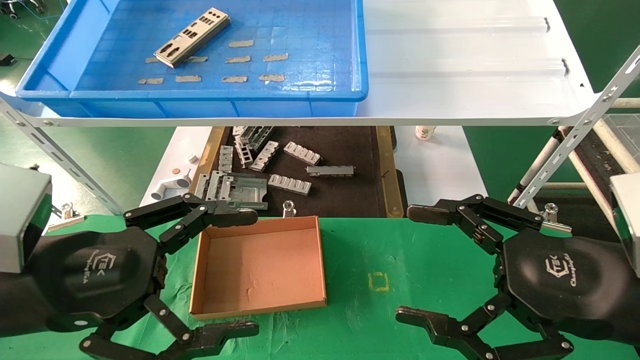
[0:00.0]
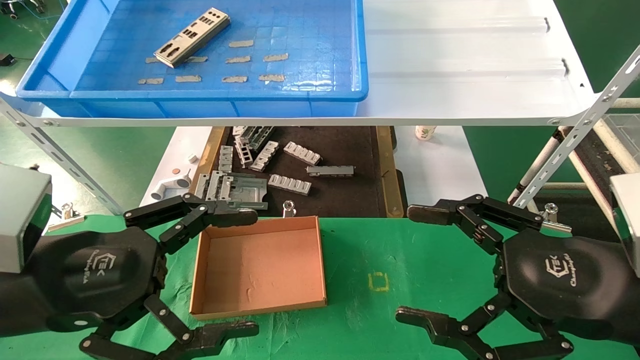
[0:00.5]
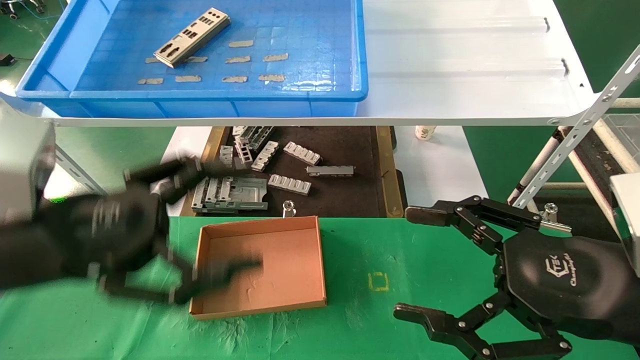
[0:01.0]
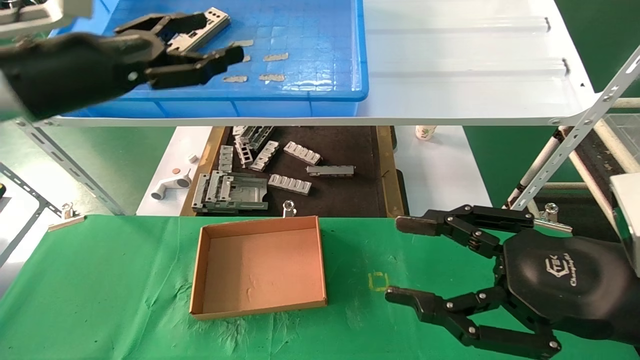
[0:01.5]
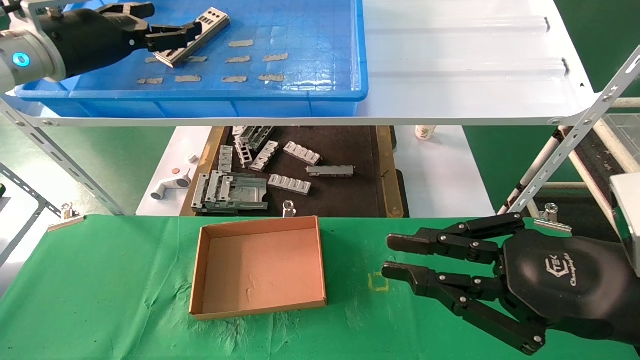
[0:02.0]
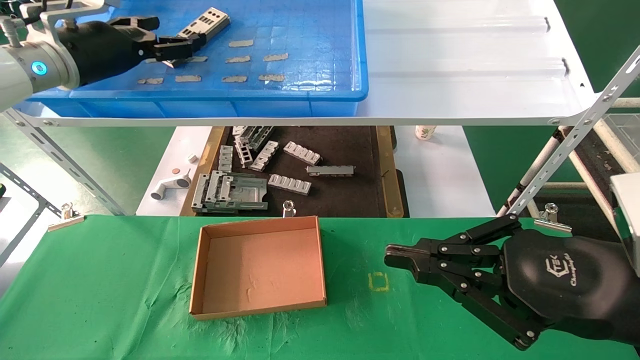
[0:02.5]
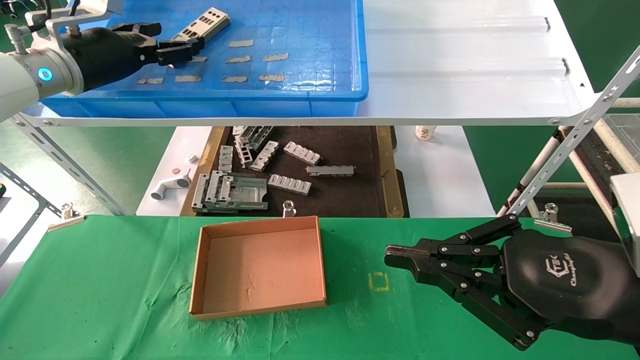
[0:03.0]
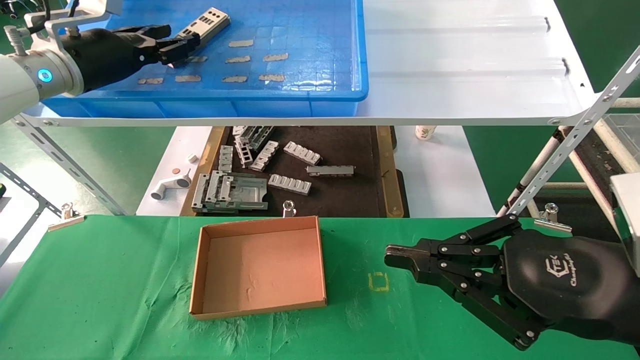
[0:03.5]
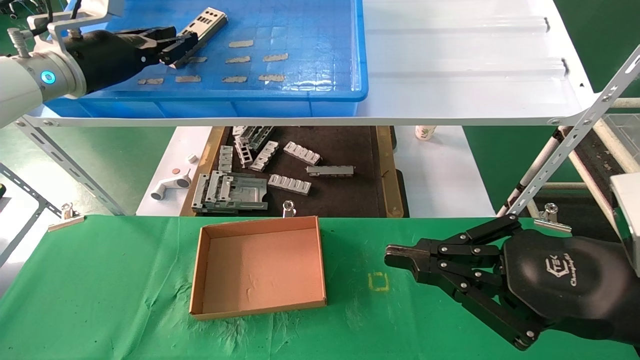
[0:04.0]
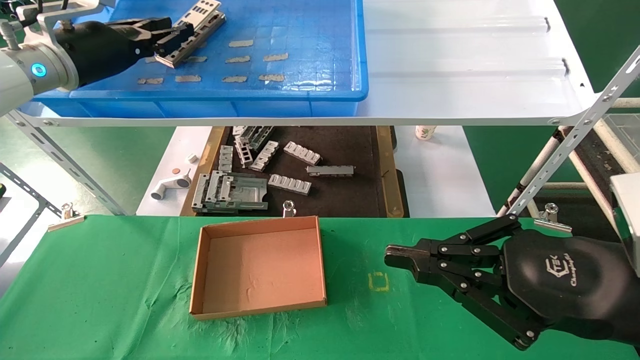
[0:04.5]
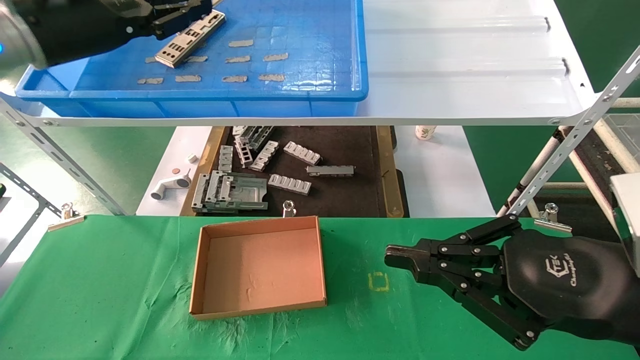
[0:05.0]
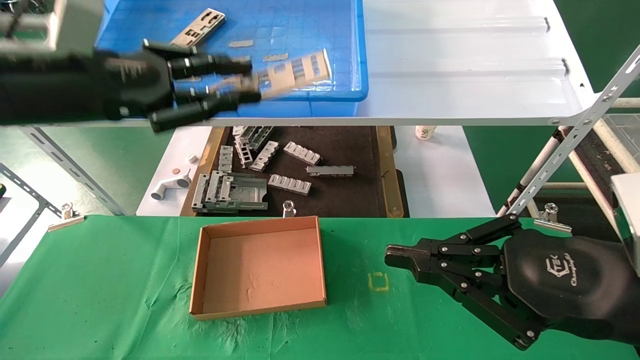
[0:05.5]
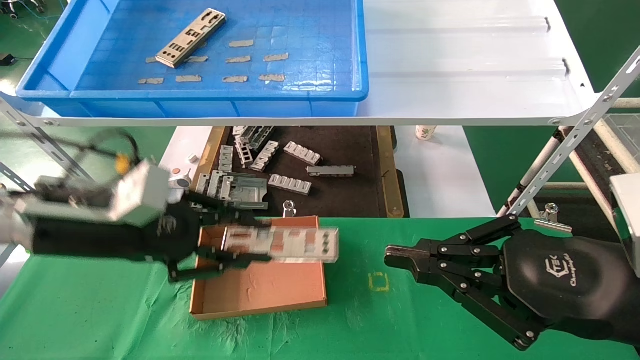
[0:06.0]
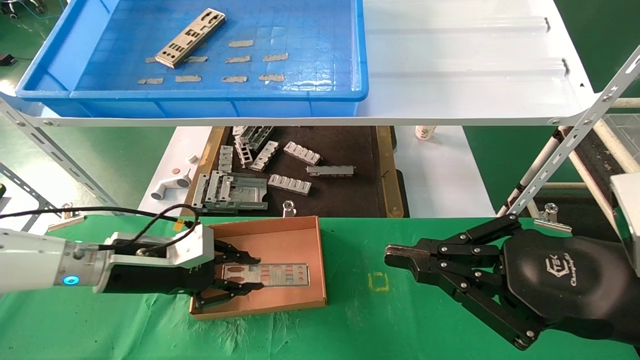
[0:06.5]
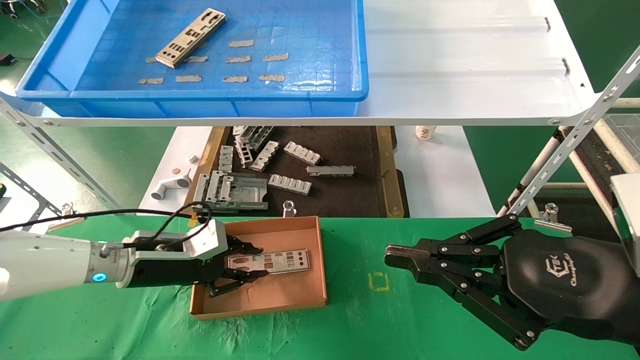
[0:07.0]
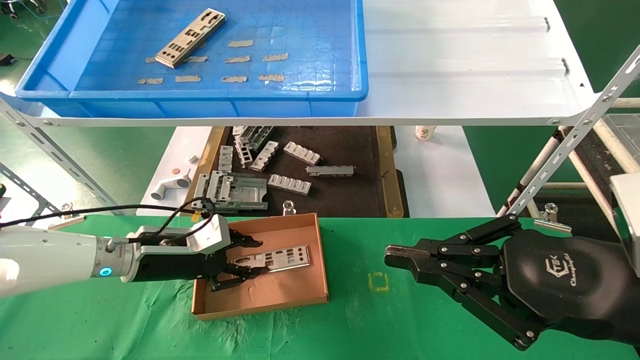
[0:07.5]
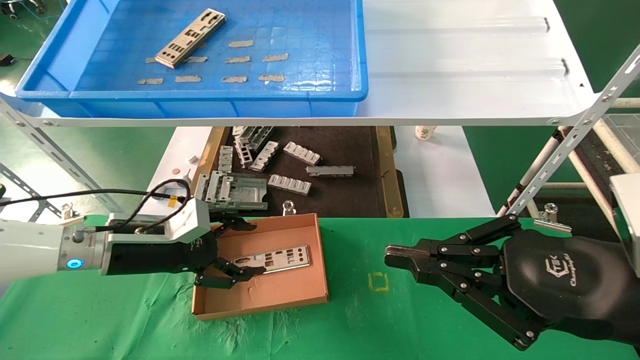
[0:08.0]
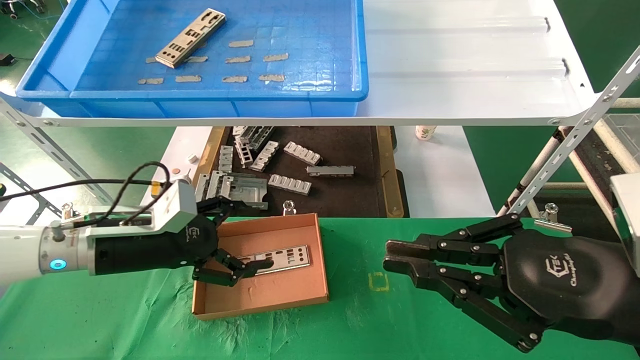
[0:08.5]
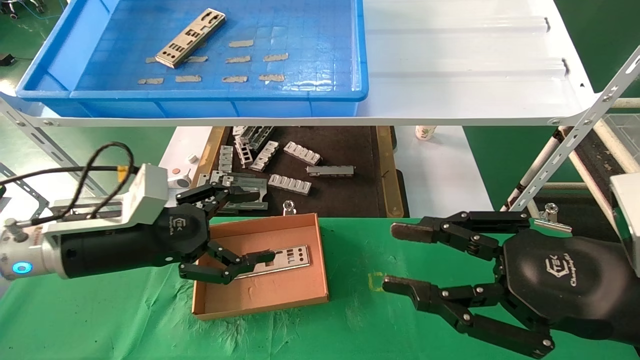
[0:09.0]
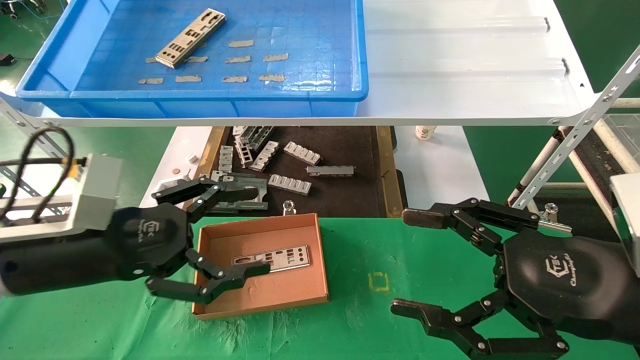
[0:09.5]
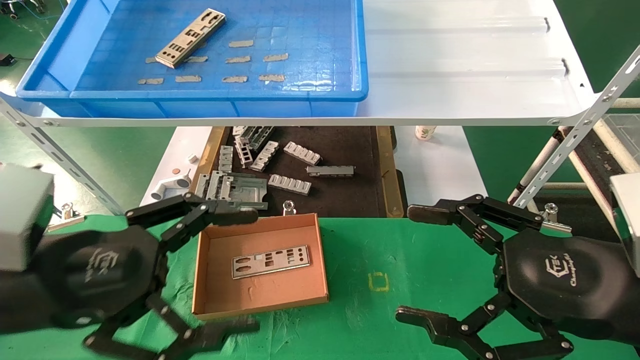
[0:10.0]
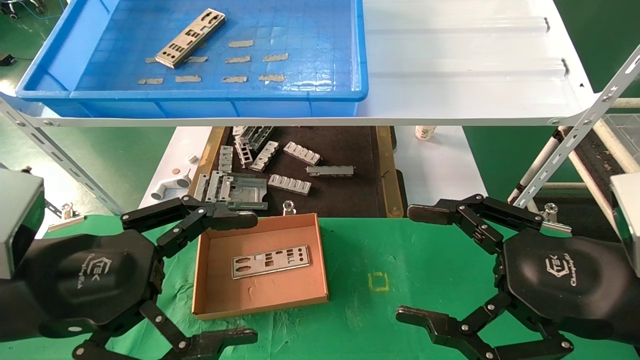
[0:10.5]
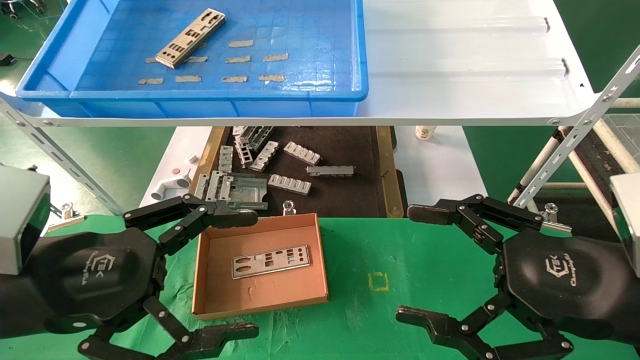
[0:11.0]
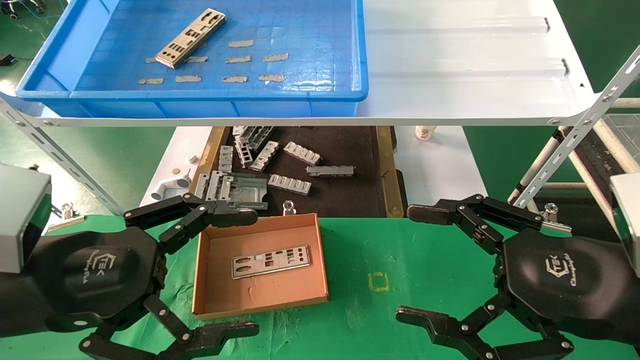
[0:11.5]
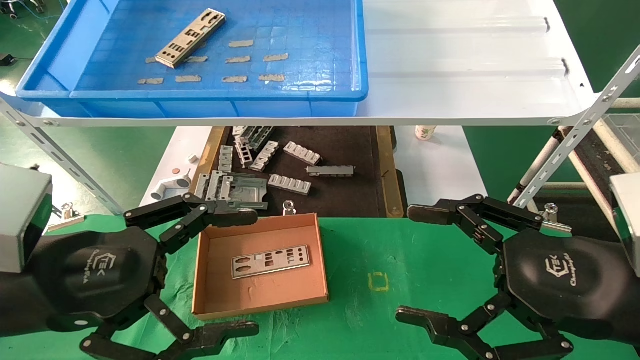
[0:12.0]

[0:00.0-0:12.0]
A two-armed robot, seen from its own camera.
Task of the whole recording: pick up the parts on the tray and put them in the cardboard box.
Step, 0:01.0 to 0:04.5: Pick up the IO bracket from the container box.
Step, 0:05.0 to 0:07.5: Place the IO bracket into the ingredient slot.
0:00.0 to 0:02.0: The left gripper shifts about 30 cm forward and upward, while the right gripper closes its fingers.
0:02.0 to 0:04.0: The left gripper closes up.
0:04.0 to 0:06.0: The left gripper shifts roughly 20 cm downward and backward.
0:06.0 to 0:08.0: The left gripper heads downward and forward, covering some 10 cm, and opens.
0:08.0 to 0:10.0: The right gripper opens its fingers. The left gripper goes about 20 cm backward and upward, and opens its fingers.
0:10.0 to 0:12.0: Neither gripper changes place.

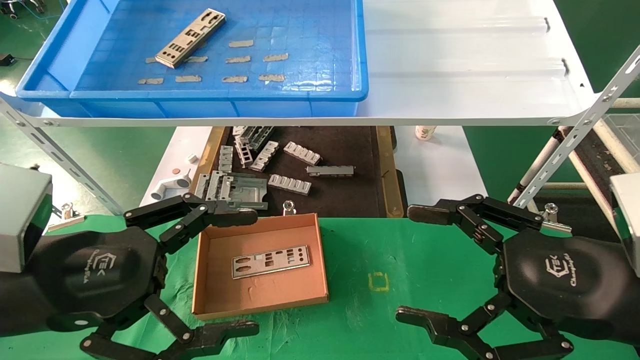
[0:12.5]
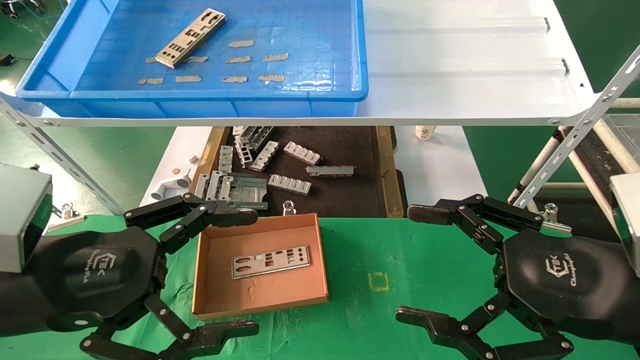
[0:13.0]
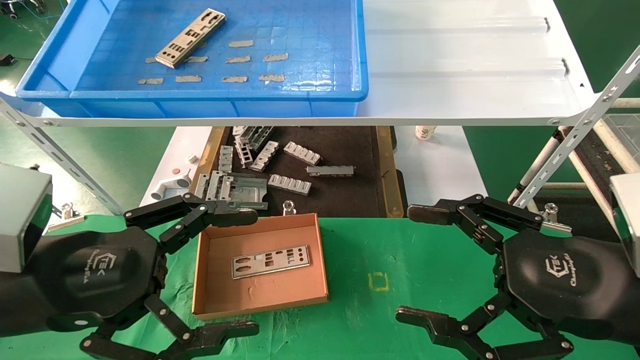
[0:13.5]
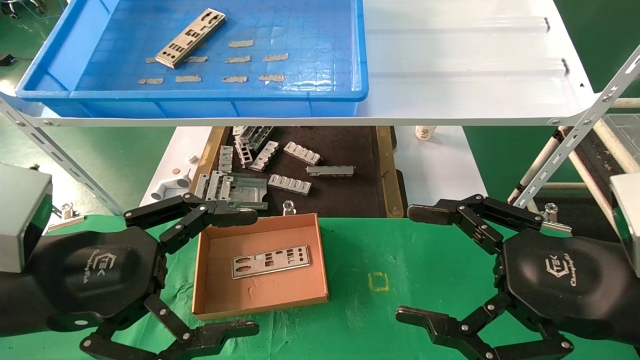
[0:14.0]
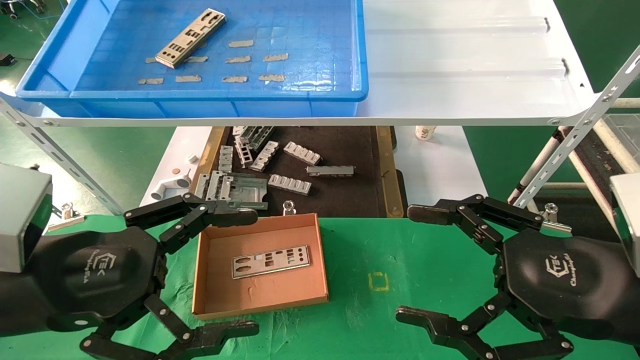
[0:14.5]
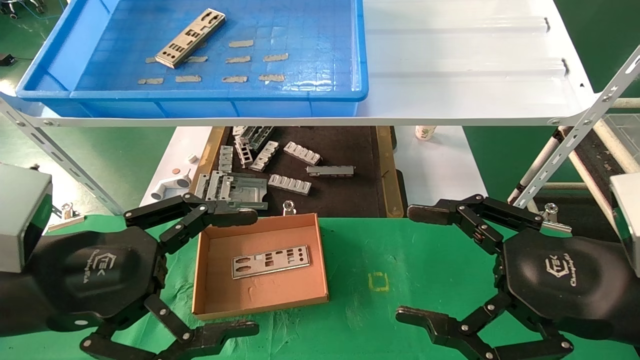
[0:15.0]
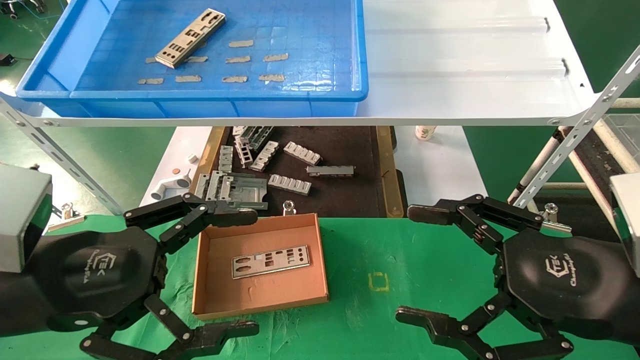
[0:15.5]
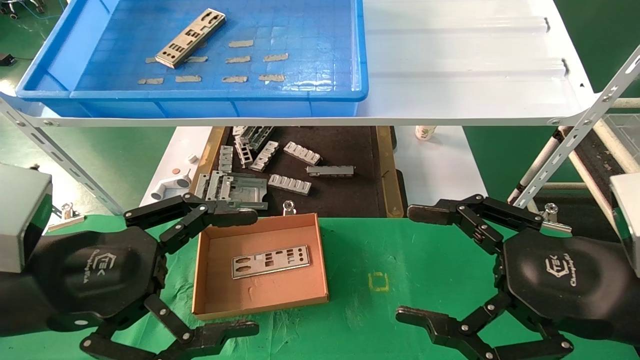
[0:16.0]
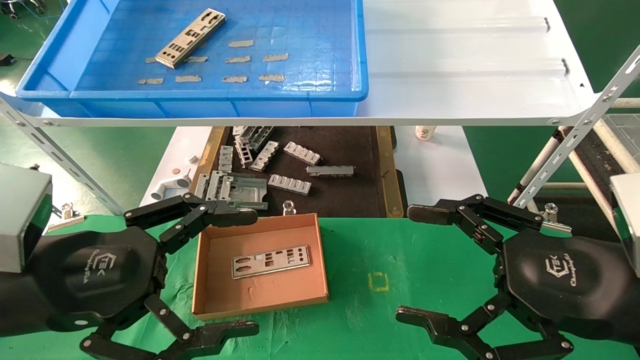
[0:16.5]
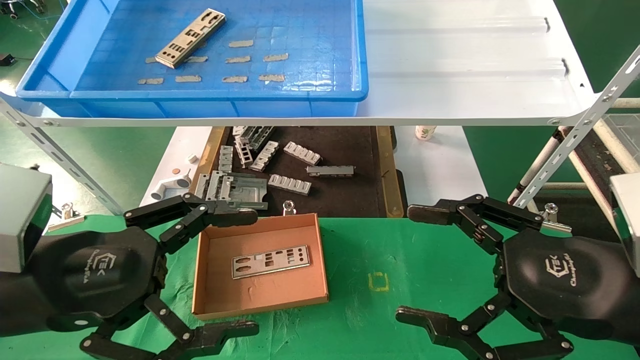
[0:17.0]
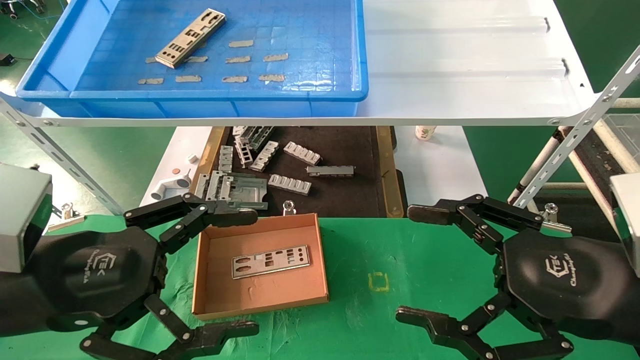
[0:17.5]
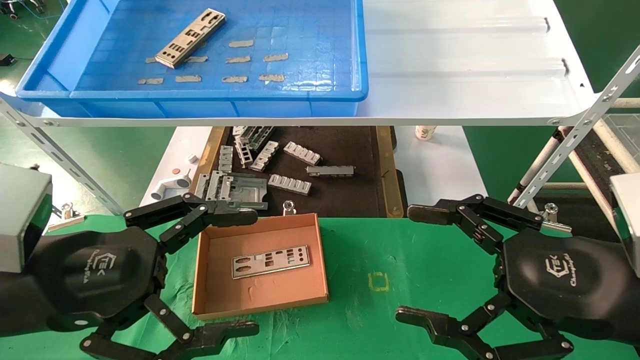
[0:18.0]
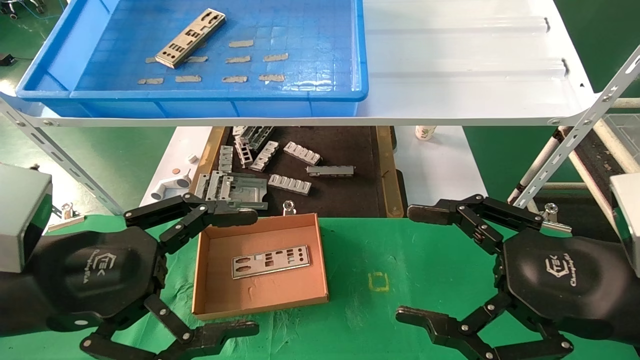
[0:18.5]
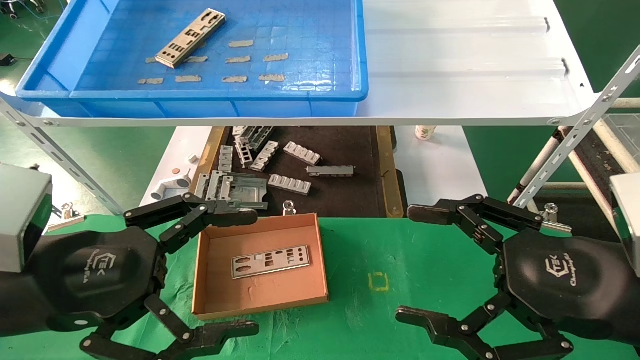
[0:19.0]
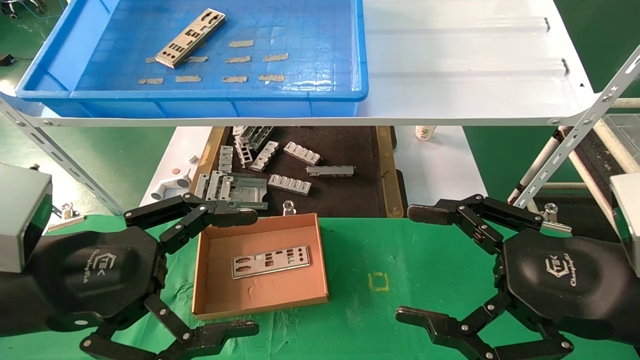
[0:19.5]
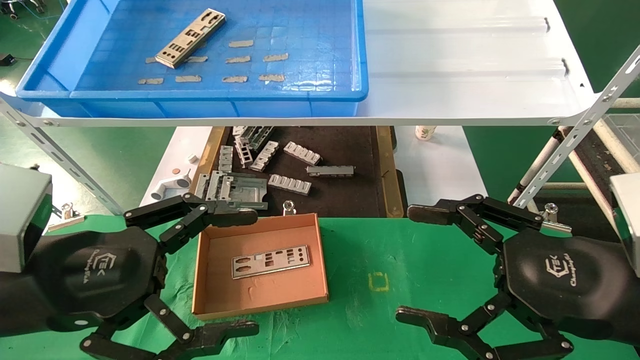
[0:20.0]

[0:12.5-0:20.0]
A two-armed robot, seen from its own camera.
Task of the whole recording: pick up the parts on the tray and put them in the cardboard box.
0:12.5 to 0:20.0: The two grippers keep their place.
